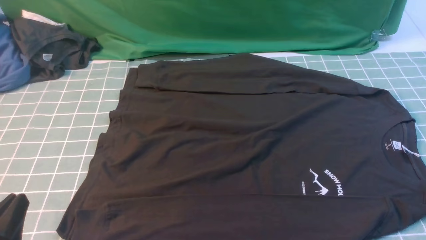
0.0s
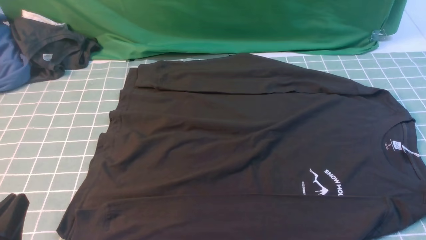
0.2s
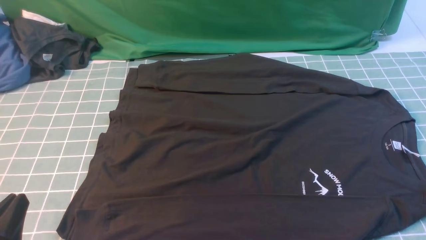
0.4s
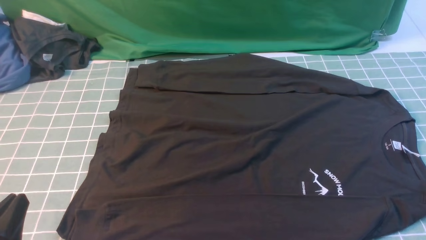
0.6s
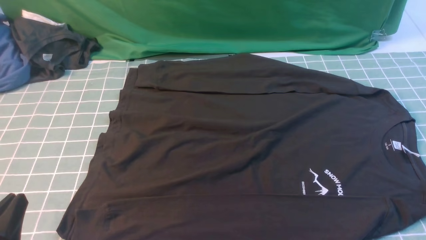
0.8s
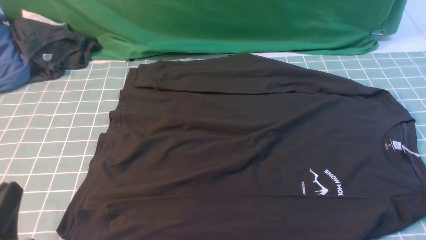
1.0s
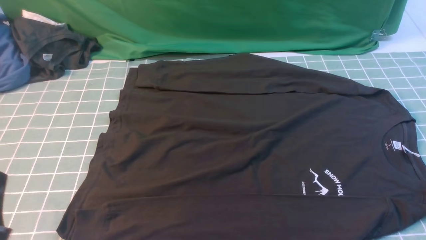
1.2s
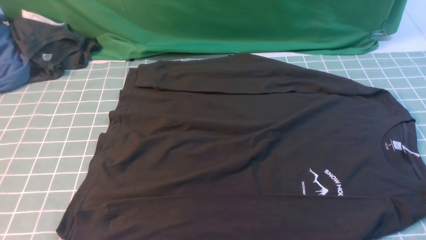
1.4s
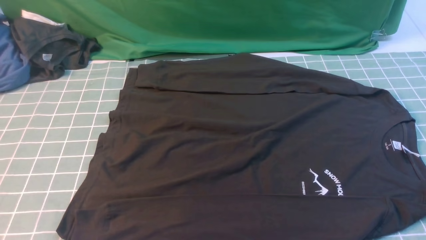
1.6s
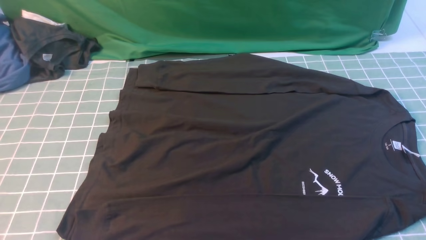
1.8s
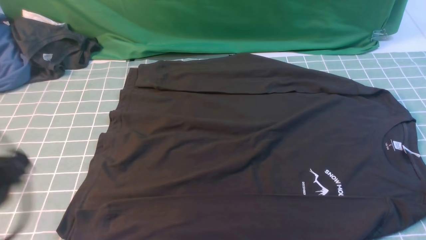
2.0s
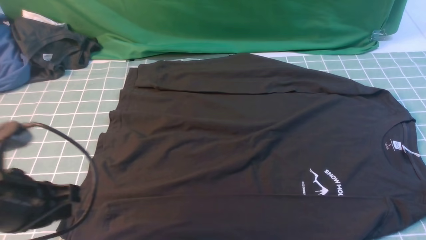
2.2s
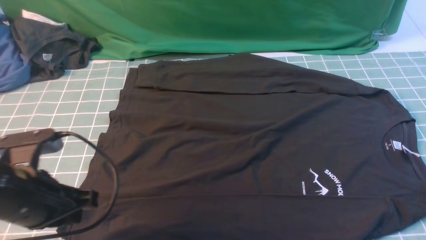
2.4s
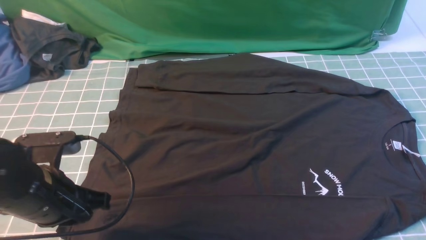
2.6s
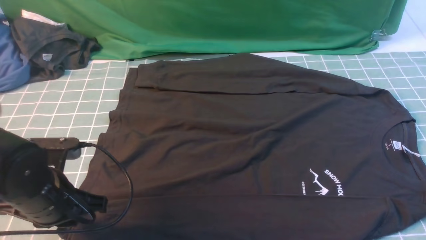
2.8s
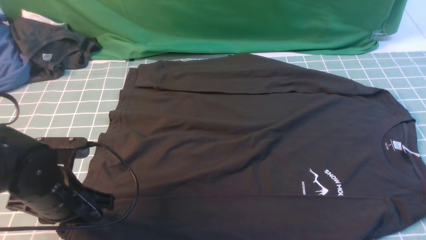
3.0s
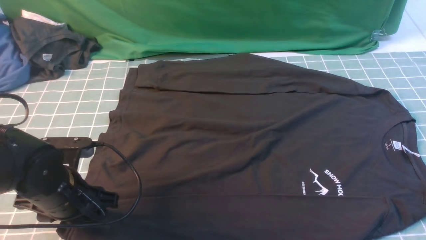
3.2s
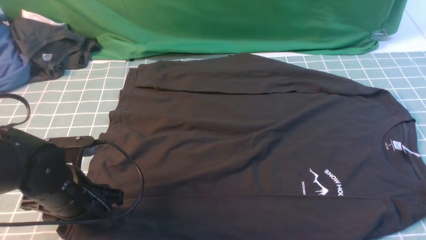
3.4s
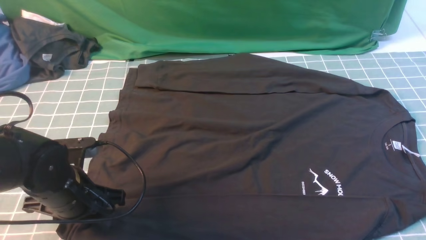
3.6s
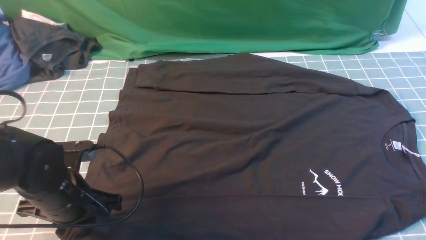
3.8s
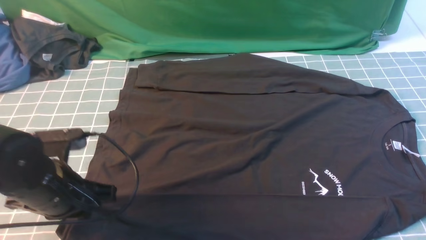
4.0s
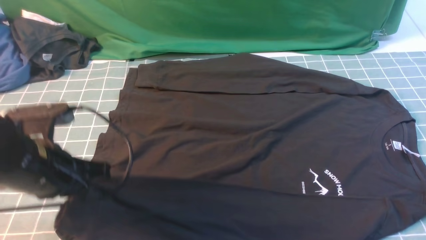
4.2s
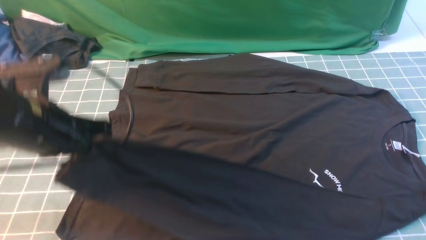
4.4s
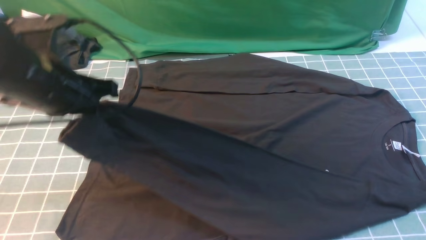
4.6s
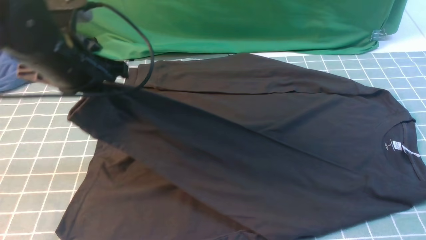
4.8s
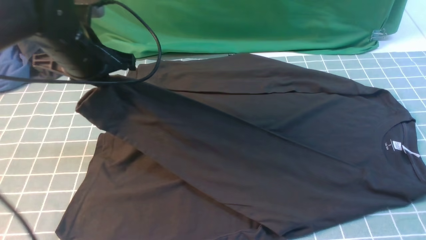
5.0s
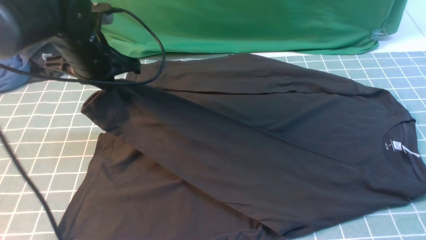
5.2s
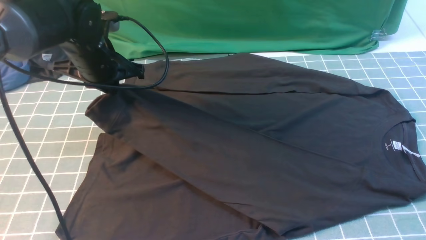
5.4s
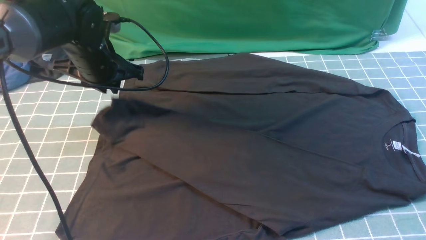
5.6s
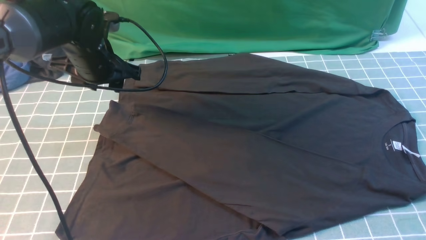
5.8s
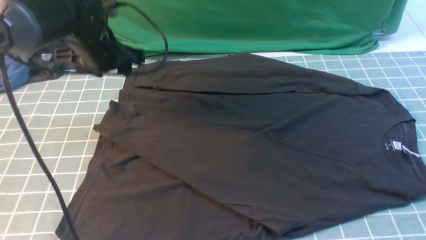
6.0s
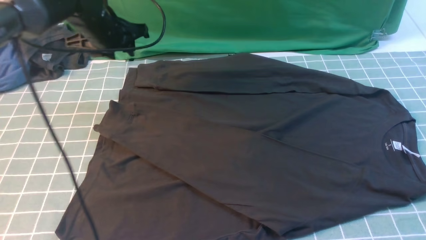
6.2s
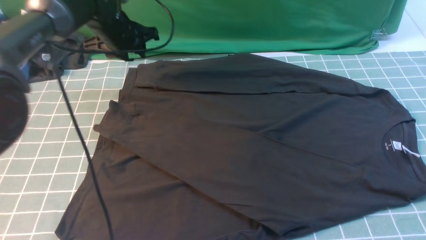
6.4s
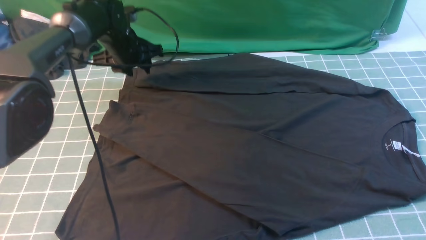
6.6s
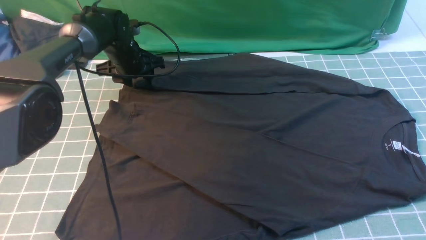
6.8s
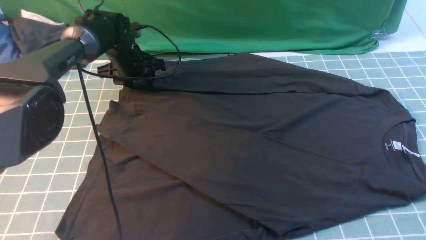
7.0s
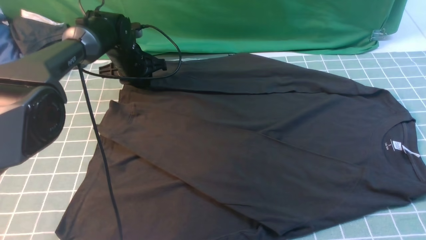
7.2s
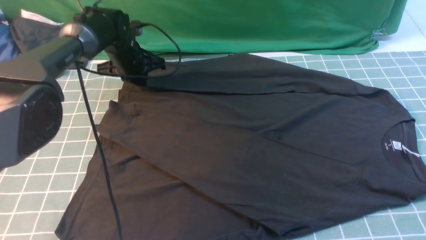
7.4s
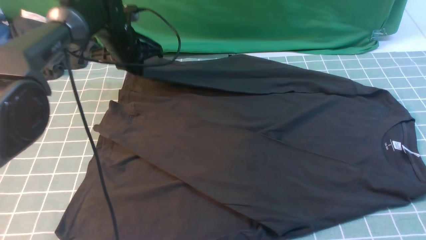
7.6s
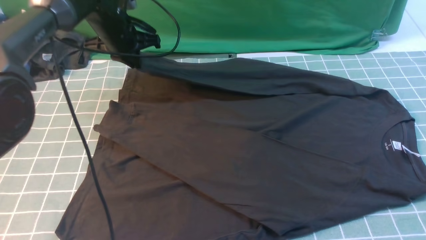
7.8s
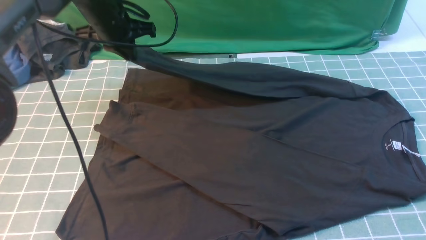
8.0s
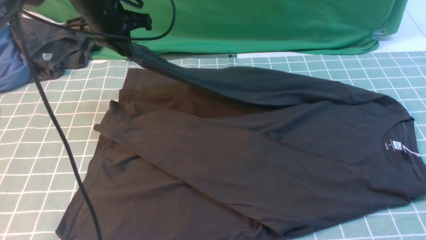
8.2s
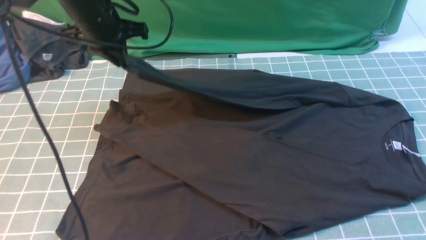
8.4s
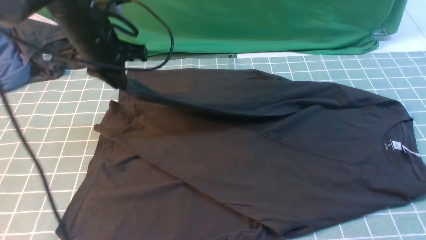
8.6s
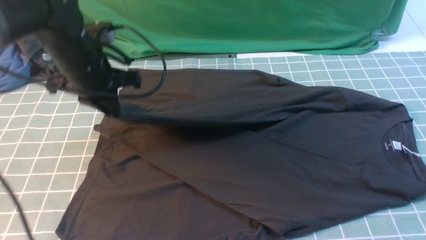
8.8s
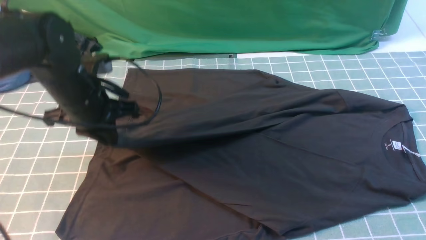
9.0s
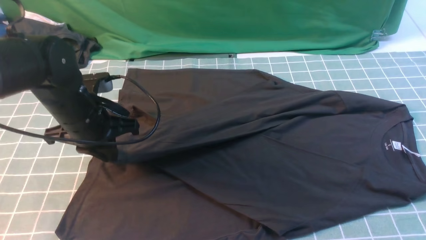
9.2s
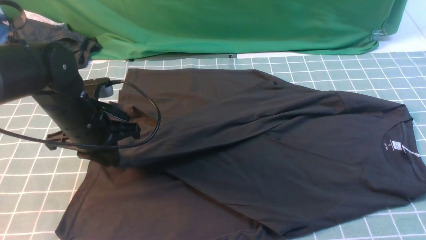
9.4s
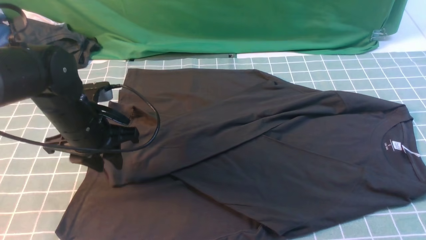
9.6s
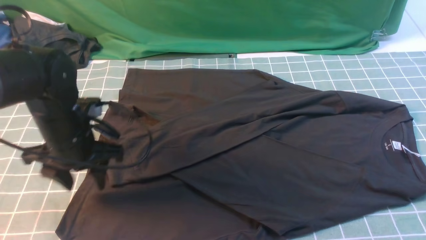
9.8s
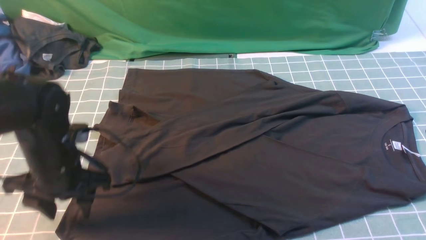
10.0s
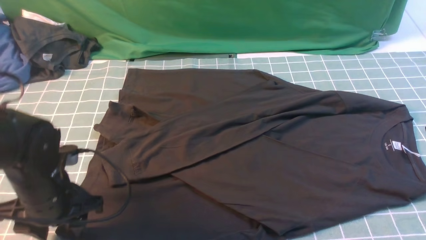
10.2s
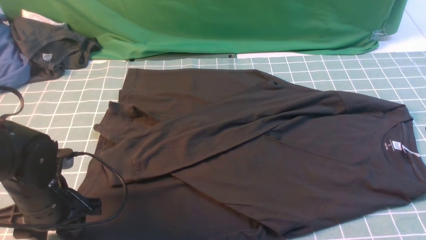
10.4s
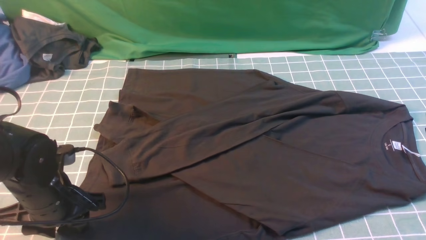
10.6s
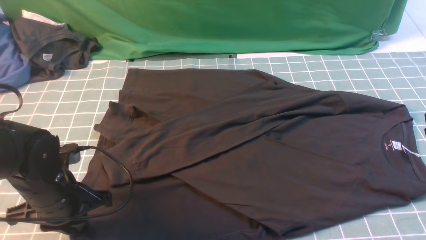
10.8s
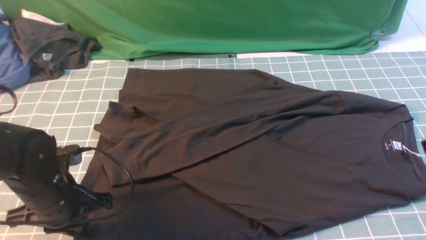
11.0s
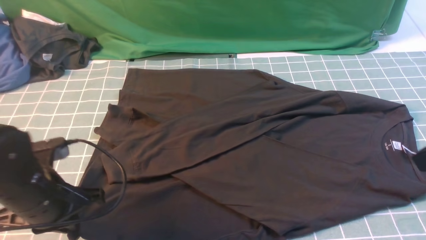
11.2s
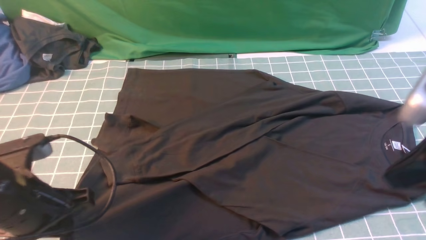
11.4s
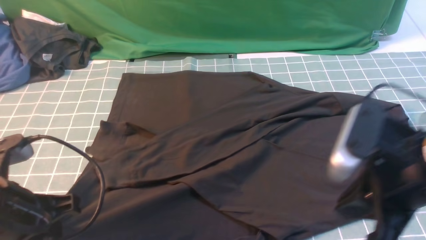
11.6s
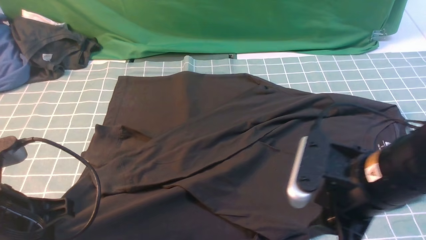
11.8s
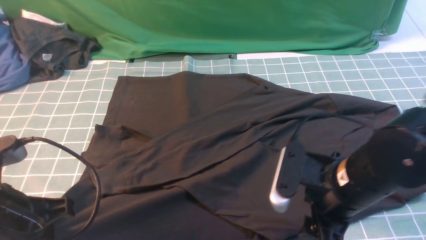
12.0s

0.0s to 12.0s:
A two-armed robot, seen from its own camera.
Step, 0.0s to 3.8s: use the left arm to clamp the cuff closest to it.
Step, 4.0s to 5.6s: use the left arm to drag and place the cuff at the centered position on the left edge of the fabric.
Step, 5.8s to 7.4s: use the left arm to clamp the cuff farthest from it.
Step, 7.6s to 9.8s: use the left arm to drag and drop the cuff onto the cuff closest to the left arm.
0.0s to 1.6s: The left gripper goes approximately 10 cm upward.
1.6s to 3.0s: The left gripper goes roughly 20 cm forward and downward, and opens up. Meanwhile the right gripper goes about 15 cm upward, and closes its fingers.
3.0s to 4.4s: The left gripper travels upward by roughly 10 cm, and closes.
4.4s to 6.0s: The left gripper is displaced forward by some 20 cm, and opens.
6.0s to 7.6s: The left gripper goes about 10 cm forward, and closes up.
7.6s to 9.0s: The right gripper moves forward, approximately 5 cm. The left gripper is displaced backward by roughly 15 cm.
9.0s to 10.4s: The left gripper heads backward and downward, covering some 15 cm, and opens up.
10.4s to 12.0s: The right gripper goes about 20 cm to the left and downward, and opens. Meanwhile the left gripper goes some 15 cm upward and backward, and closes its fingers.

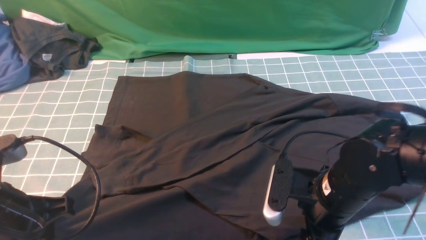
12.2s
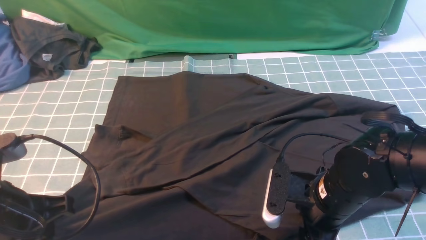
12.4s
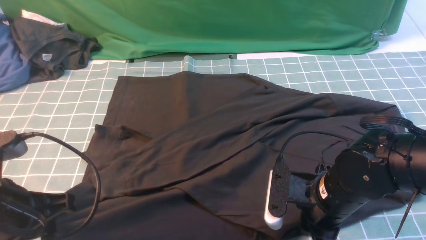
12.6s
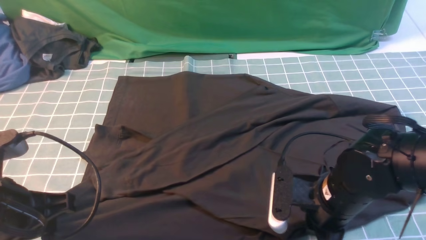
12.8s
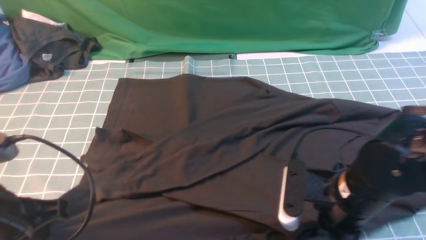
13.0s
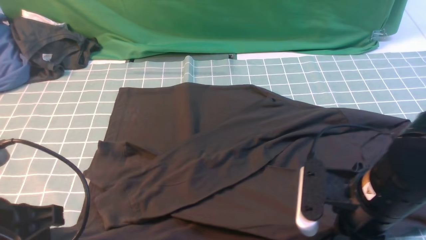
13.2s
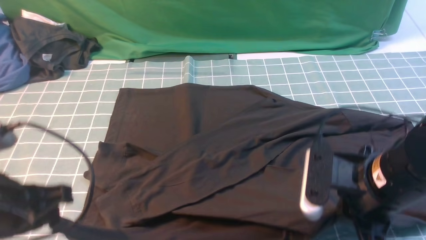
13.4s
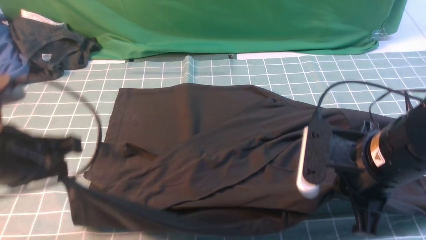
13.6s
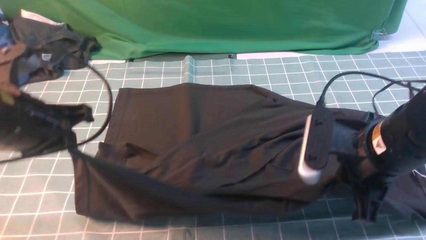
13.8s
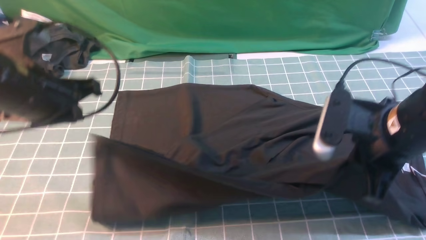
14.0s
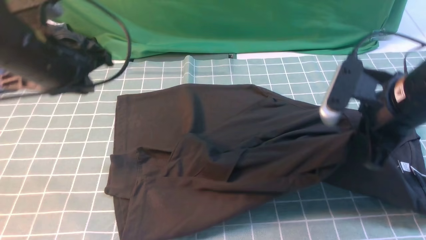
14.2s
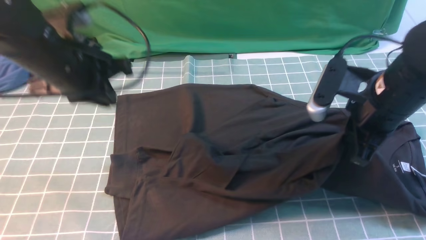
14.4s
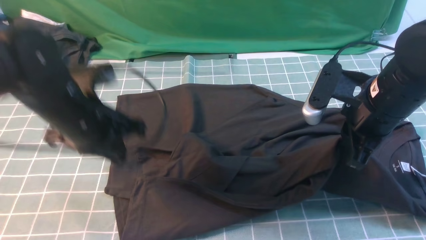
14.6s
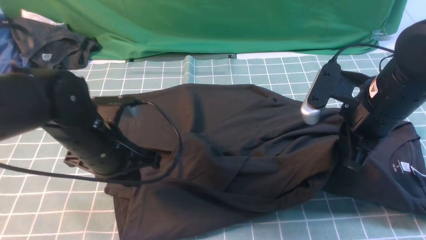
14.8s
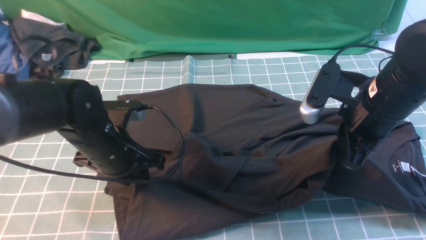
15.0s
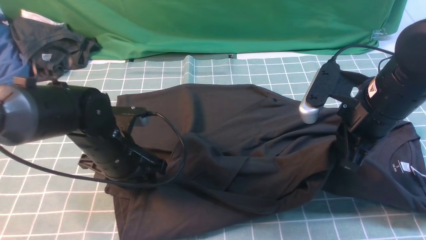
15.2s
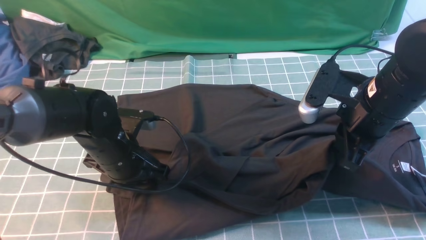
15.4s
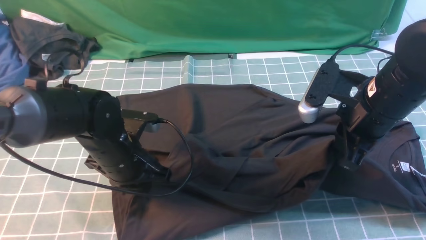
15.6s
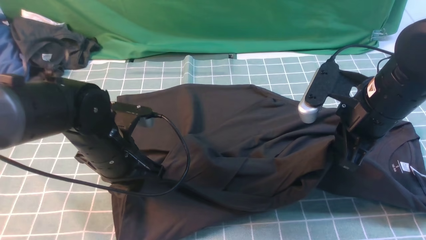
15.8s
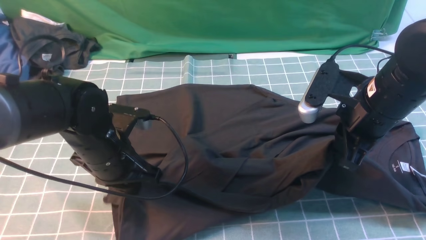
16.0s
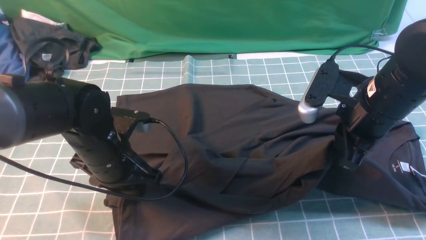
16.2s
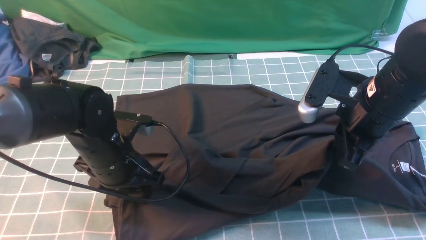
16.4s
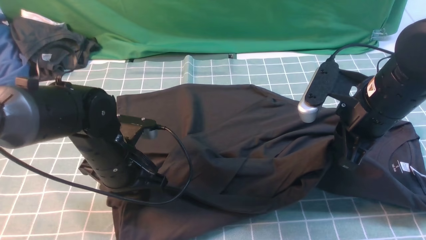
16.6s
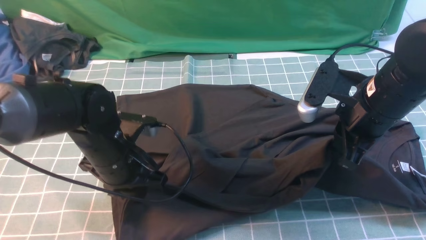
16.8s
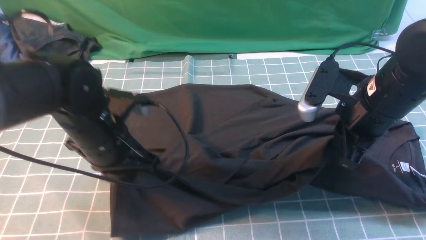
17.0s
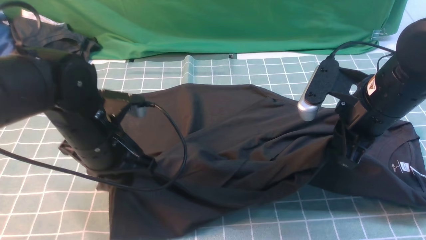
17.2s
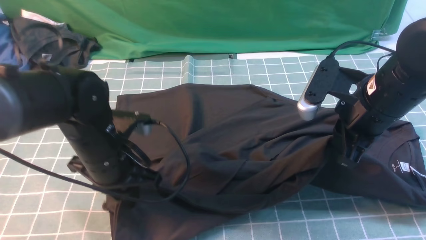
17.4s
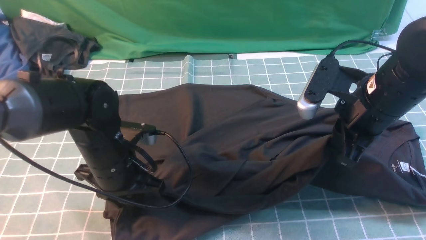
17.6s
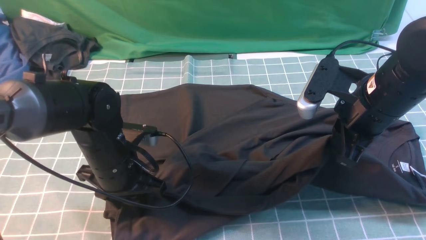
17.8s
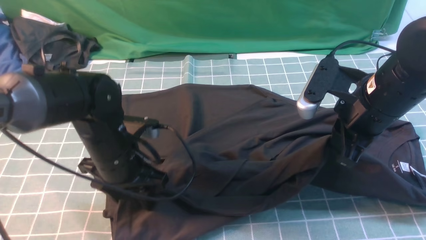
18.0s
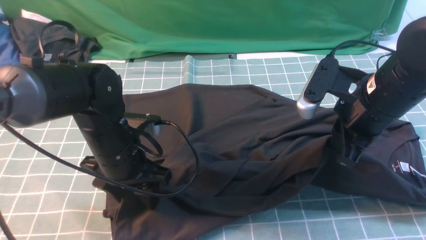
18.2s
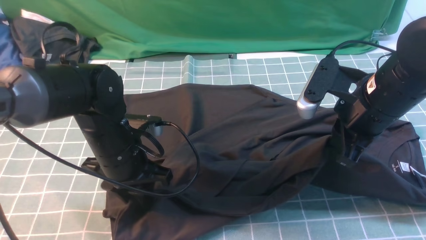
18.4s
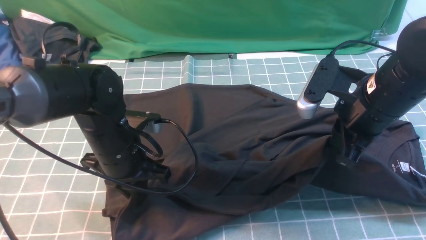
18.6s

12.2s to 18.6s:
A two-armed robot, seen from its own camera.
12.2s to 13.8s: The left gripper shifts roughly 10 cm forward and upward. Meanwhile the right gripper moves upward, some 10 cm, and closes.
13.8s to 15.4s: The right gripper moves forward, approximately 5 cm. Meanwhile the left gripper moves downward, to the right and forward, roughly 15 cm, and opens up.
15.4s to 17.0s: The left gripper shifts by about 5 cm, and closes.
17.0s to 18.6s: The left gripper opens and closes again.
